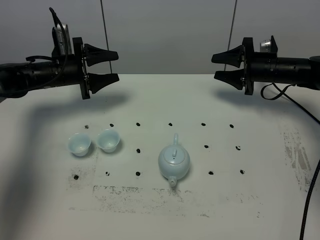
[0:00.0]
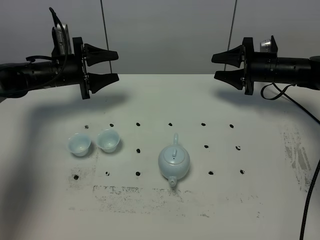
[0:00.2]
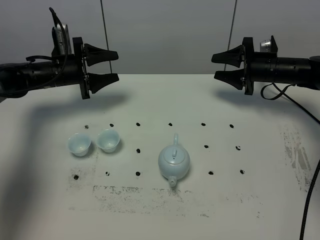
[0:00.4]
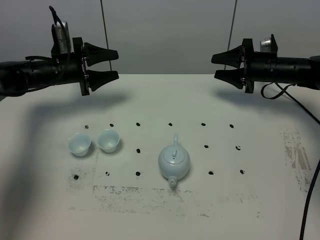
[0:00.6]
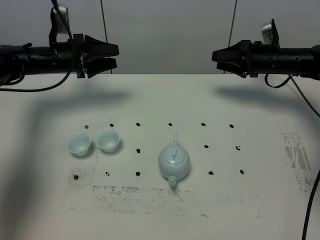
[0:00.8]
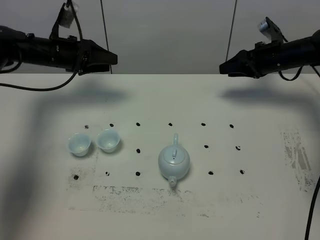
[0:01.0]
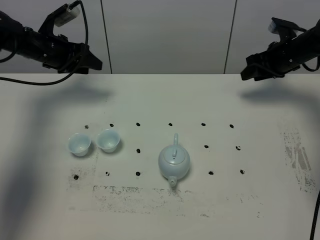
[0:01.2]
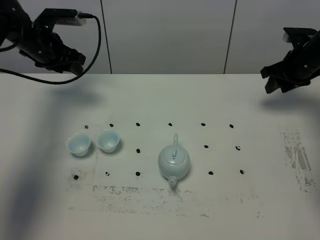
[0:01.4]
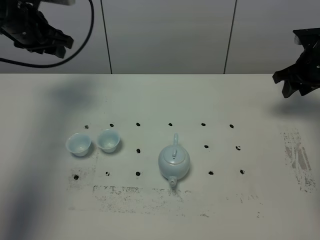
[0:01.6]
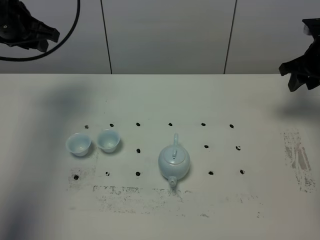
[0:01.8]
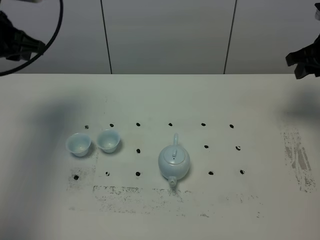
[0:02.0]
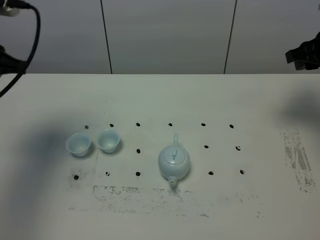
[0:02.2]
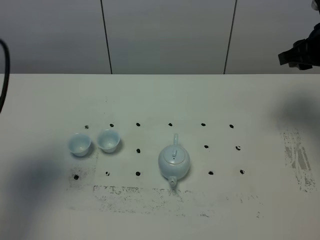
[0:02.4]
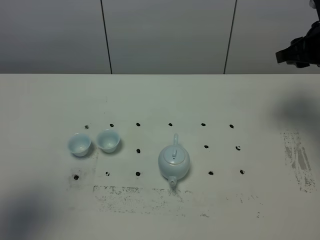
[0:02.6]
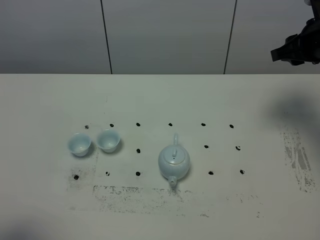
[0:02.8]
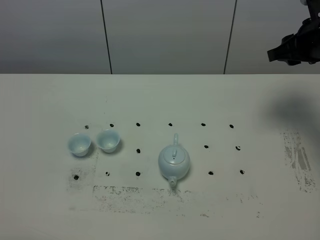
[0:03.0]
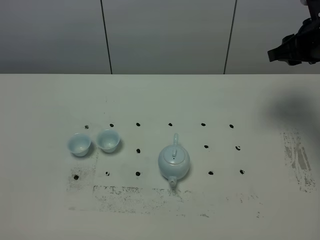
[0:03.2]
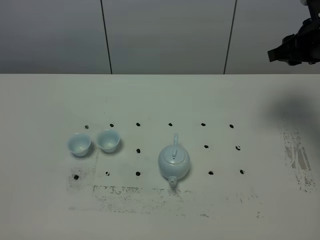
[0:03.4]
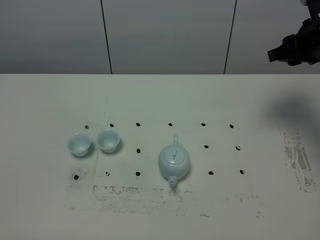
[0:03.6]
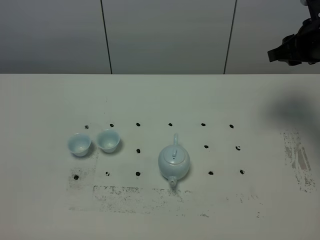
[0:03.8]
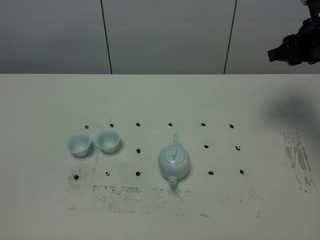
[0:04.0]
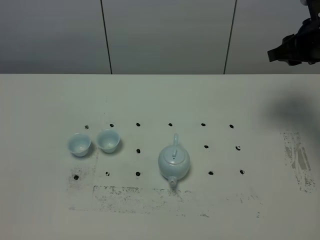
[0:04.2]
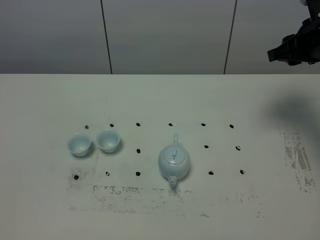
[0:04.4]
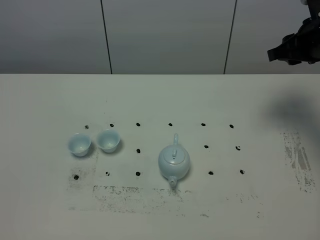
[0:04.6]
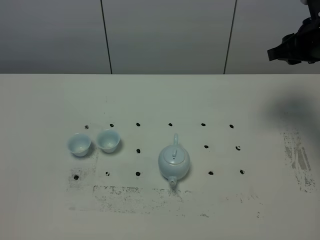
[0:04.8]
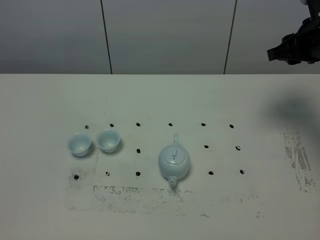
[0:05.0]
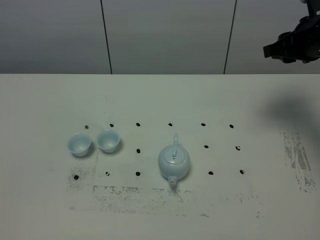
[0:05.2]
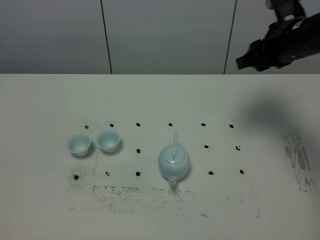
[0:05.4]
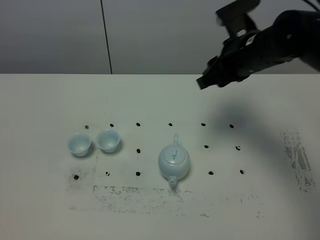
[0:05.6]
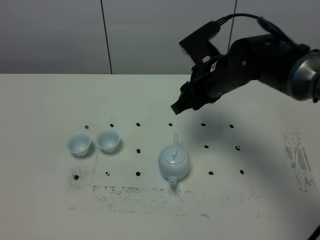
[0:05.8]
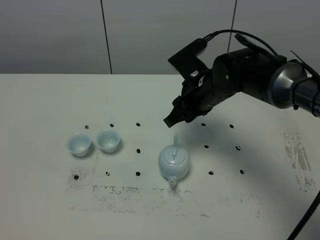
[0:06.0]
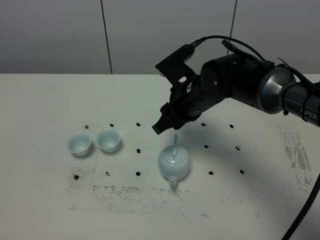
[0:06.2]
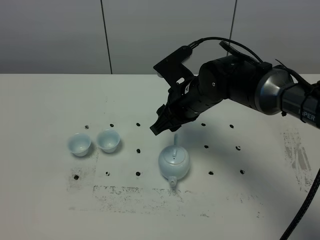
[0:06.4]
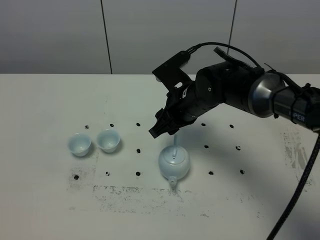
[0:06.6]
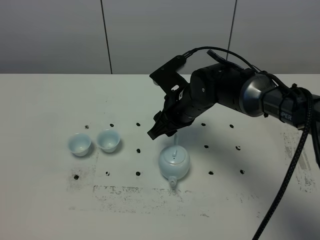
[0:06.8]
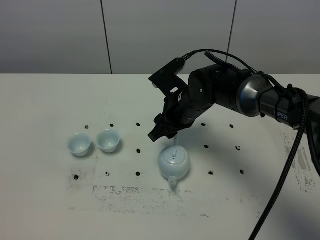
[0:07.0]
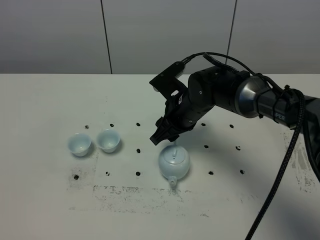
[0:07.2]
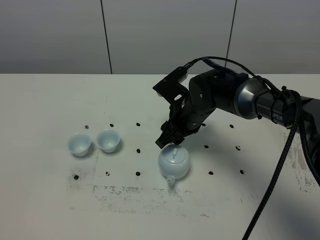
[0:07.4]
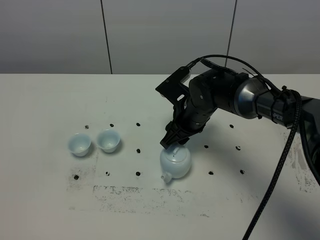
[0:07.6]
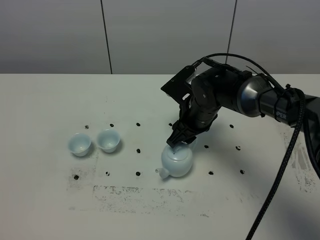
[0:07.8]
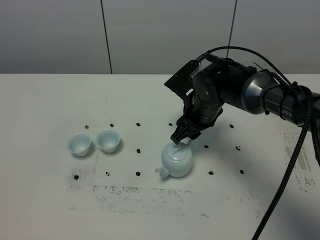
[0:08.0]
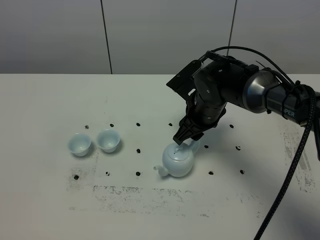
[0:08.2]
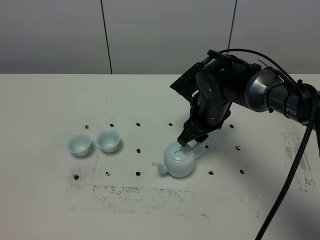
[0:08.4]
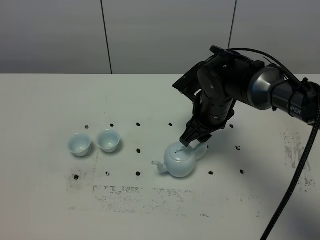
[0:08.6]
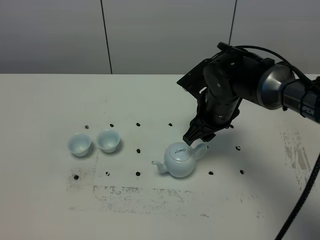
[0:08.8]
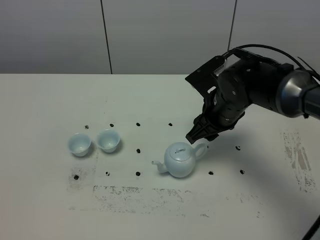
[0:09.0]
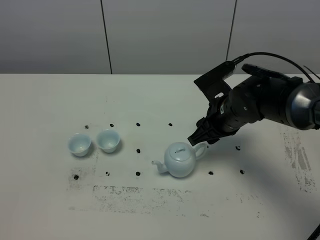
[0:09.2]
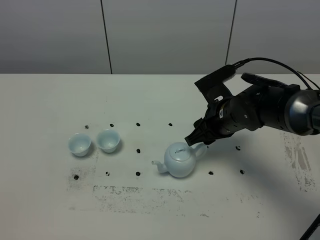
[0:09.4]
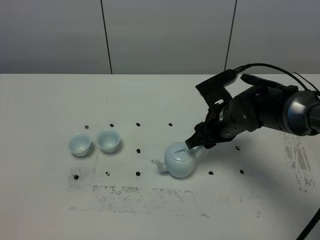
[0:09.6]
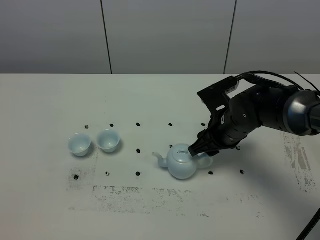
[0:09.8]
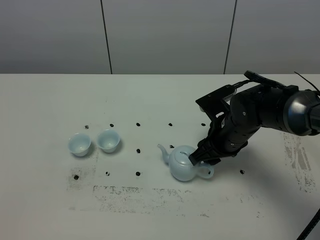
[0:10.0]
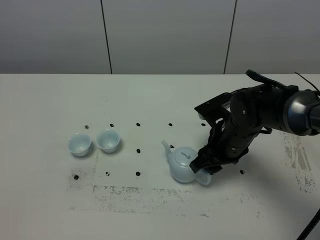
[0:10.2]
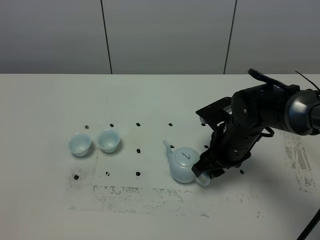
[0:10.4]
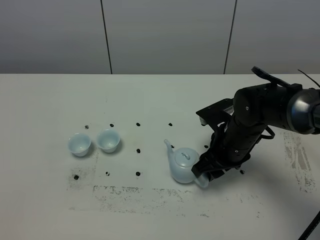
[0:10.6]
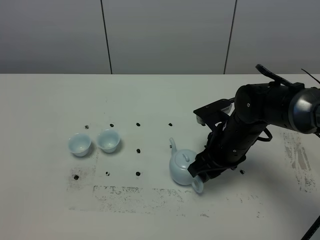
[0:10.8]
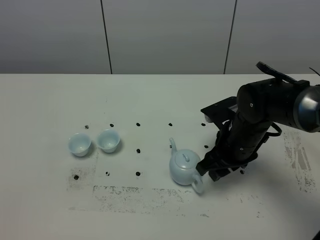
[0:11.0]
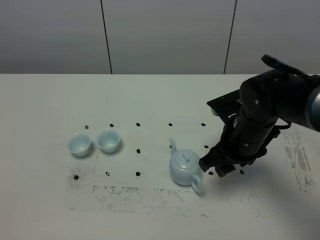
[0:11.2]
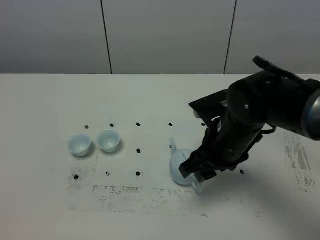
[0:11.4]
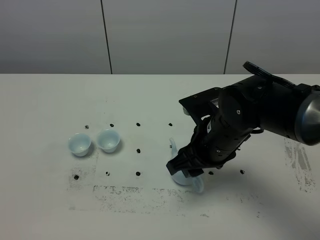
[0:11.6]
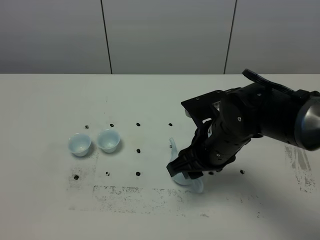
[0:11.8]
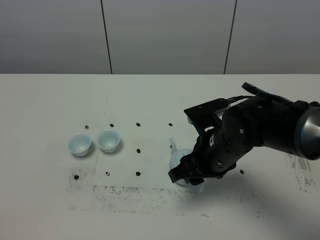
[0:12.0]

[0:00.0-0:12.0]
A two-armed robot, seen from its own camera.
Task of the whole recording: grasp the blue porcelain teapot and pour the tea into the two blue porcelain teacups one by one, put the blue porcelain teapot back in its original place.
0:00.0 to 0:01.6: The left gripper shifts approximately 15 cm upward. The right gripper shifts roughly 10 cm to the right and upward.
0:01.6 to 0:03.0: The left gripper is displaced backward by about 50 cm, and closes. The right gripper shifts some 10 cm upward and backward.
0:04.4 to 0:06.0: The right gripper travels to the left and downward by some 20 cm.
0:06.0 to 0:07.6: The right gripper shifts about 5 cm downward.
0:07.6 to 0:09.0: The right gripper shifts roughly 5 cm to the right.
0:09.0 to 0:10.4: The right gripper shifts by roughly 5 cm.
0:10.4 to 0:12.0: The right gripper moves backward, about 5 cm.

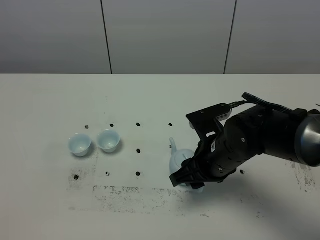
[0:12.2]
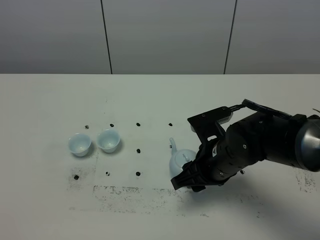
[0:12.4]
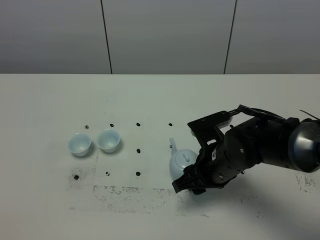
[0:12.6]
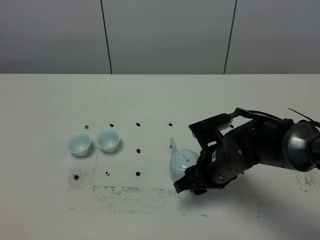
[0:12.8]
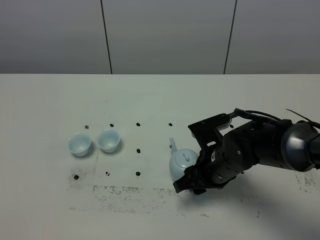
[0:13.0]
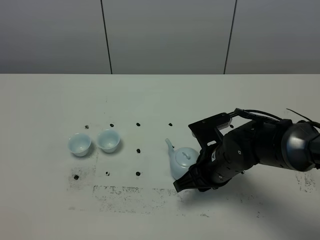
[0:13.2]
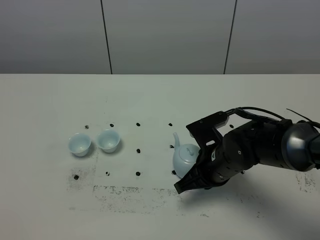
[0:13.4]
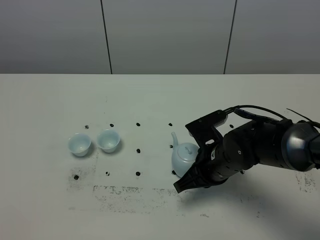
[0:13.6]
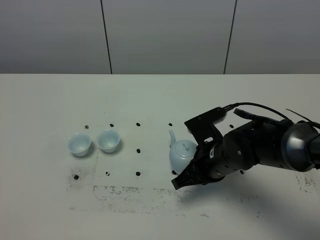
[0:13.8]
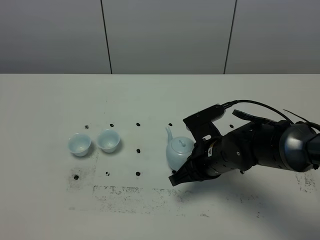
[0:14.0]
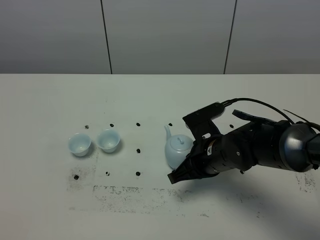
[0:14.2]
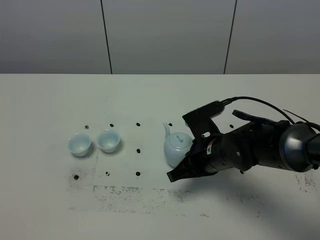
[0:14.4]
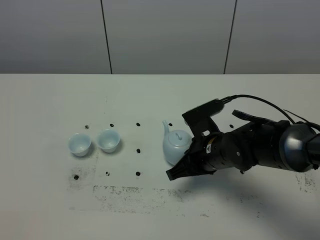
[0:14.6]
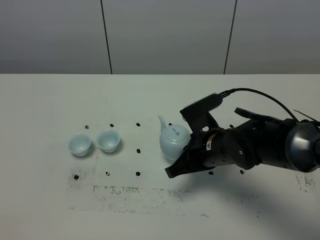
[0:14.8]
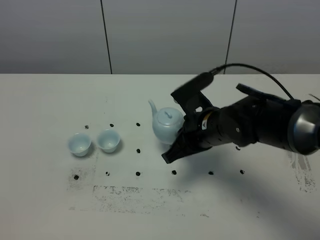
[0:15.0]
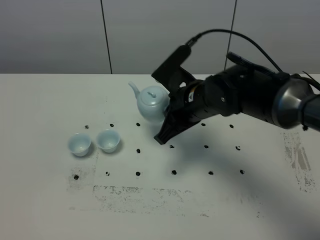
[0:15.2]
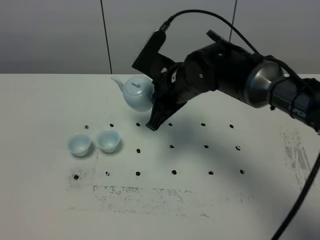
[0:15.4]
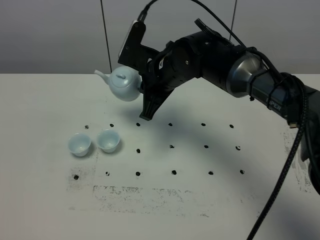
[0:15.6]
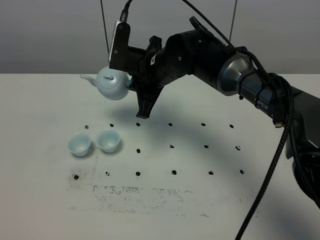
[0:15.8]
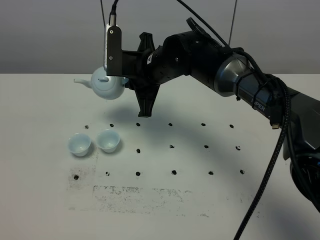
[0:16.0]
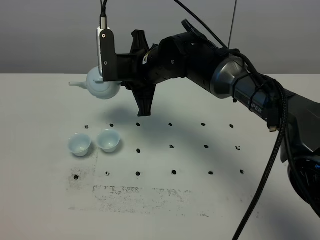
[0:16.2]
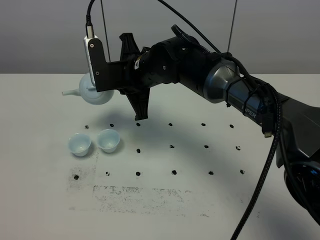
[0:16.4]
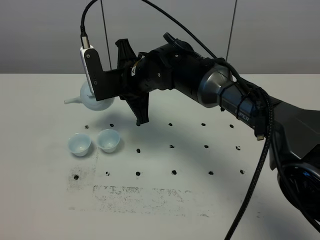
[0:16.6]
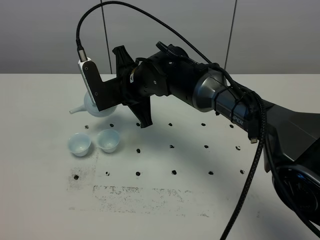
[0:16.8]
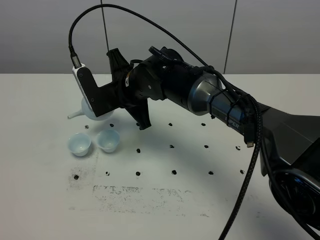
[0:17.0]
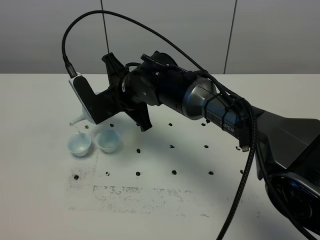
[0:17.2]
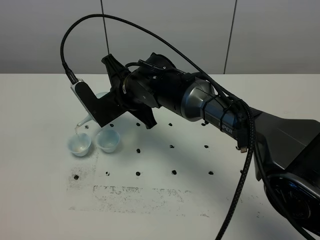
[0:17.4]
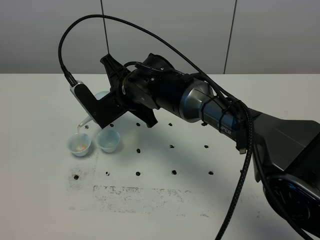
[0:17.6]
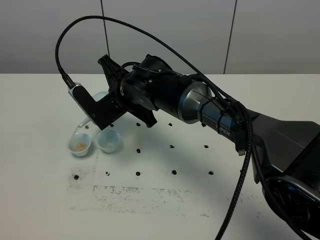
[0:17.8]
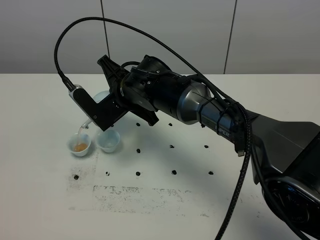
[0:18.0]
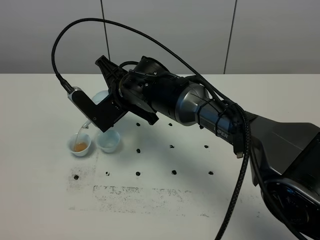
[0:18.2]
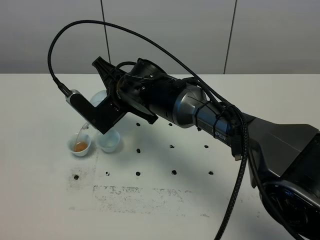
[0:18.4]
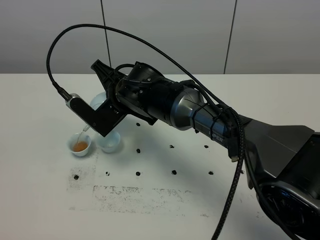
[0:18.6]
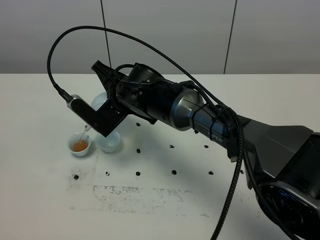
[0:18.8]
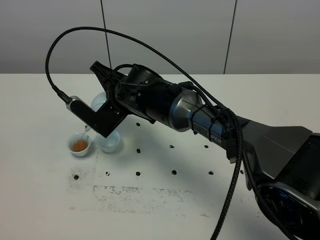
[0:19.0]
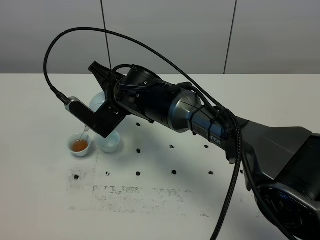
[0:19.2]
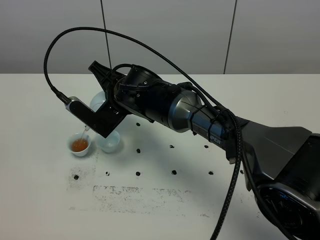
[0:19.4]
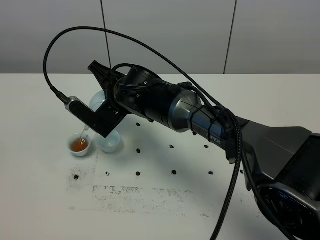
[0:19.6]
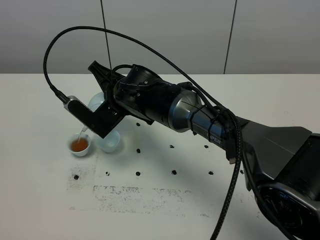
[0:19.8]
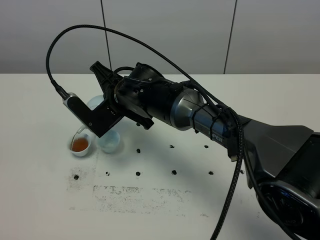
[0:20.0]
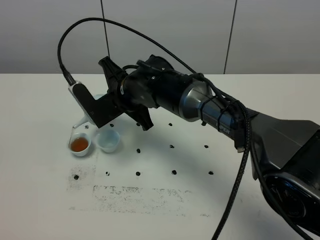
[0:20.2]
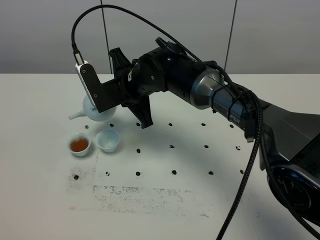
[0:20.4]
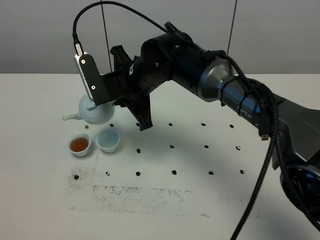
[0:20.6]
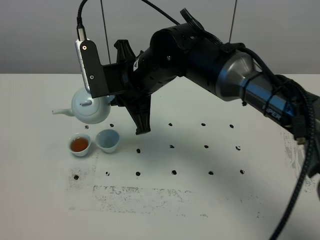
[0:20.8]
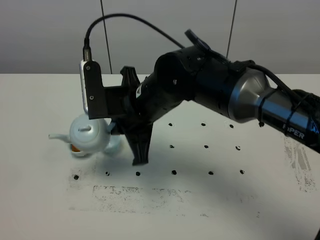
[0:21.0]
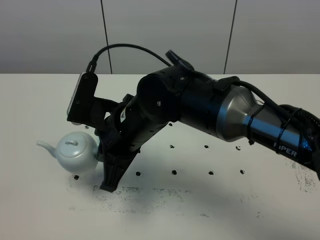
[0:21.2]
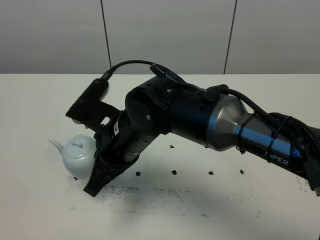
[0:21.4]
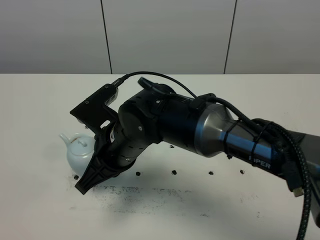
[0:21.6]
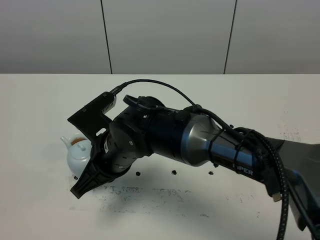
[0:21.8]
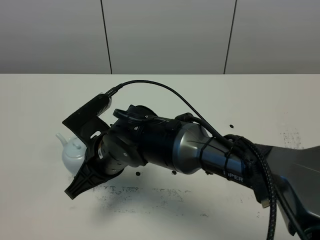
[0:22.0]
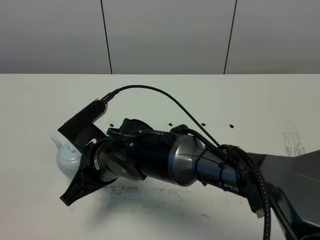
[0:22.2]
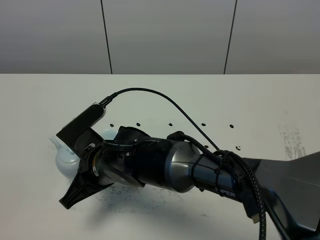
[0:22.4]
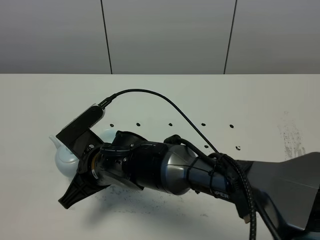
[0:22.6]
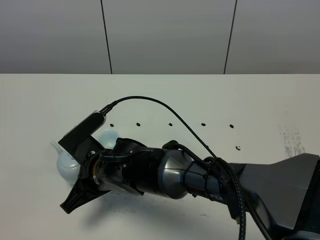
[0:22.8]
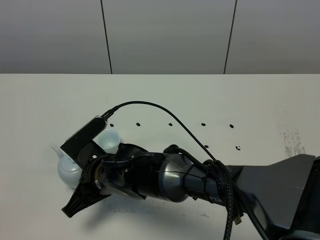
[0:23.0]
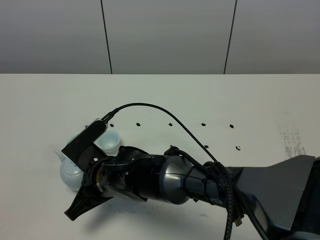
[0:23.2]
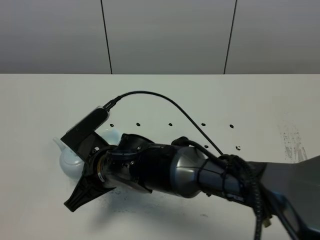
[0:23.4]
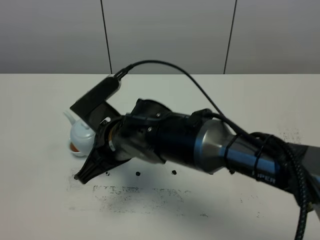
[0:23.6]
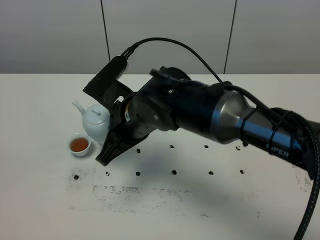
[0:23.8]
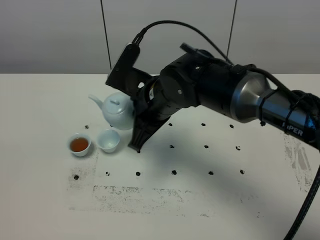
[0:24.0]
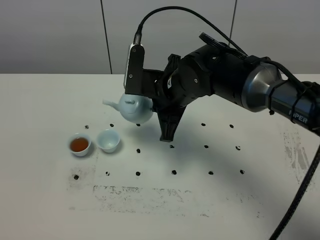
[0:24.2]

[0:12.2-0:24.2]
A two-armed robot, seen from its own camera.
Task of the whole recording: grasp the blue porcelain teapot and pour the tea into the two blue porcelain teacups one by one, put the blue porcelain teapot back in its original place.
Step, 0:12.2 to 0:14.8: Pick up the teapot with the right gripper.
0:12.2 to 0:13.8: The right gripper closes.
0:13.8 to 0:15.2: The right gripper goes about 10 cm upward, to the left and forward.
0:15.2 to 0:16.6: The right gripper moves to the left, some 10 cm.
0:18.2 to 0:19.8: The grippers make only small movements.
0:19.8 to 0:21.2: The right gripper moves backward, roughly 10 cm.
0:21.2 to 0:22.6: The right gripper travels downward by roughly 10 cm.
0:22.6 to 0:24.2: The right gripper shifts roughly 20 cm forward, to the right and upward.
